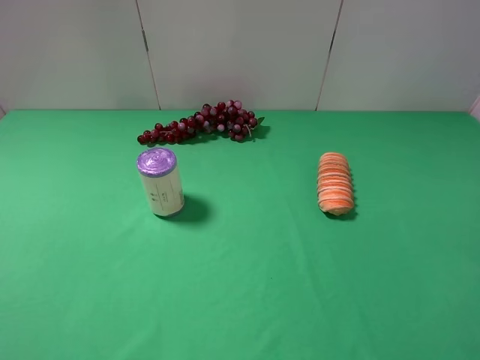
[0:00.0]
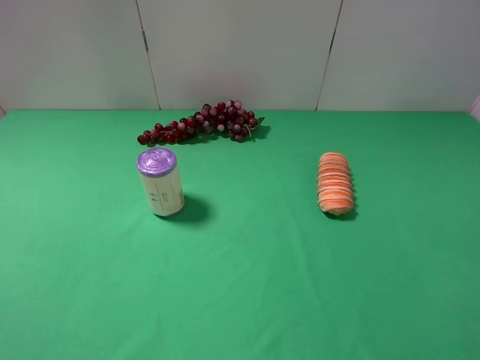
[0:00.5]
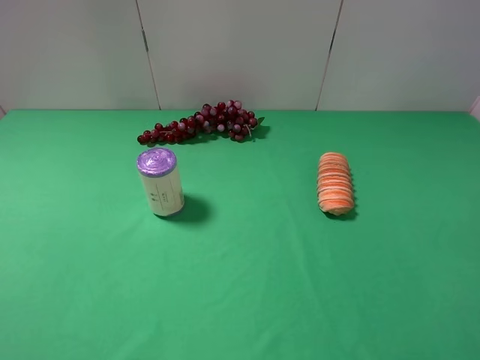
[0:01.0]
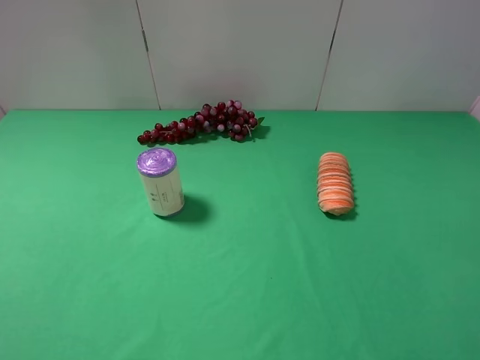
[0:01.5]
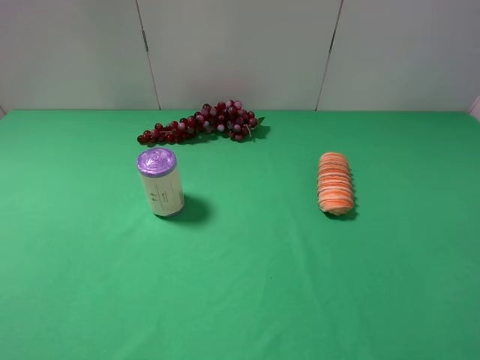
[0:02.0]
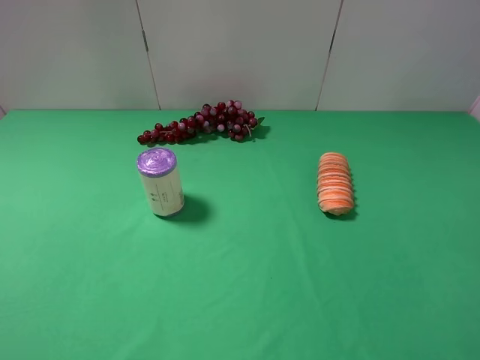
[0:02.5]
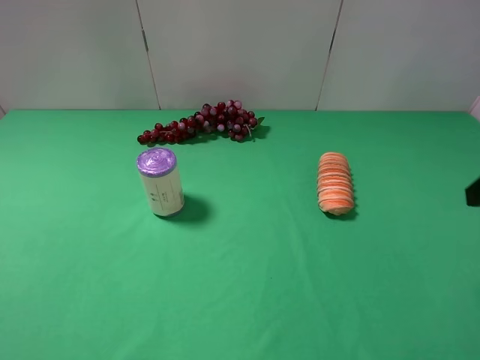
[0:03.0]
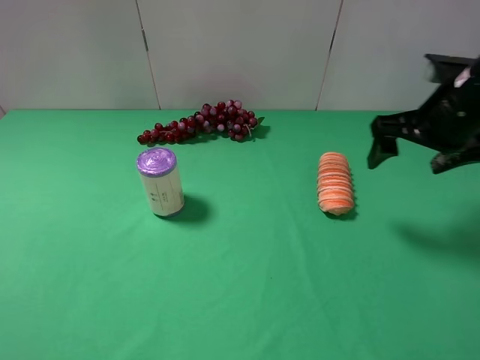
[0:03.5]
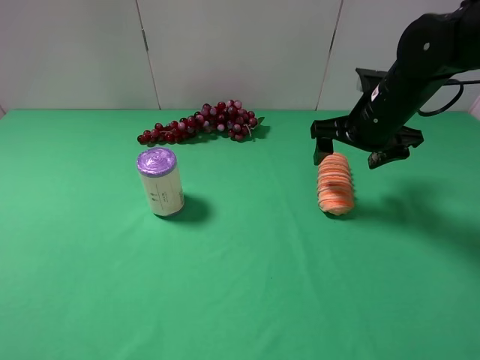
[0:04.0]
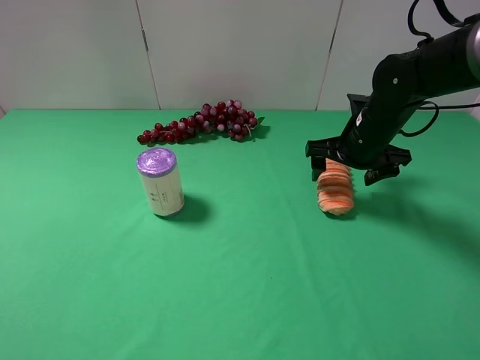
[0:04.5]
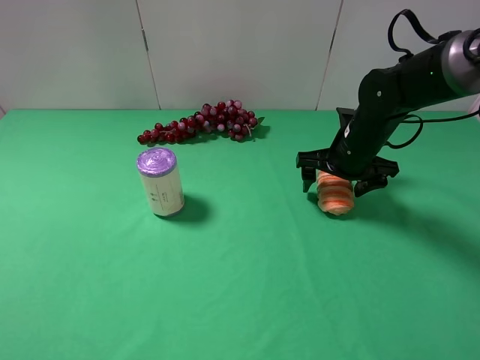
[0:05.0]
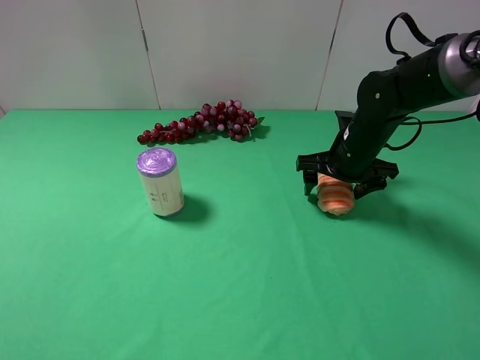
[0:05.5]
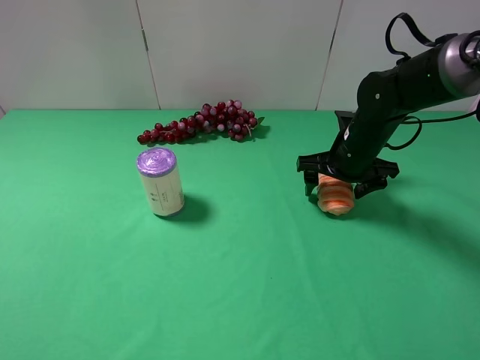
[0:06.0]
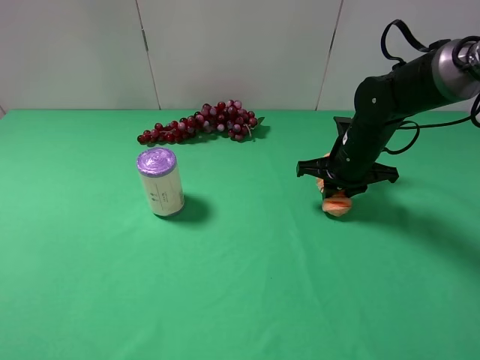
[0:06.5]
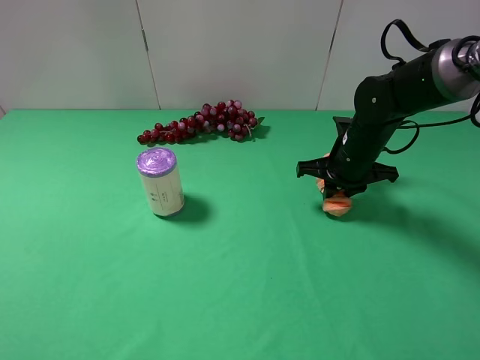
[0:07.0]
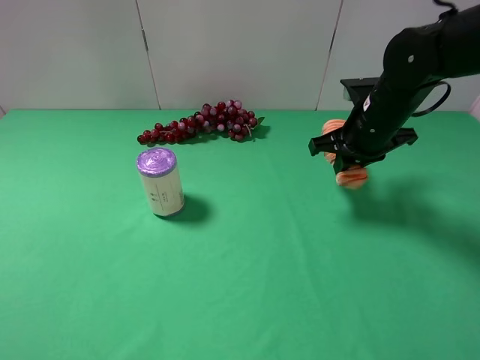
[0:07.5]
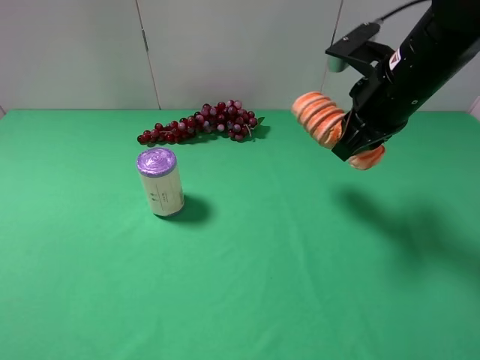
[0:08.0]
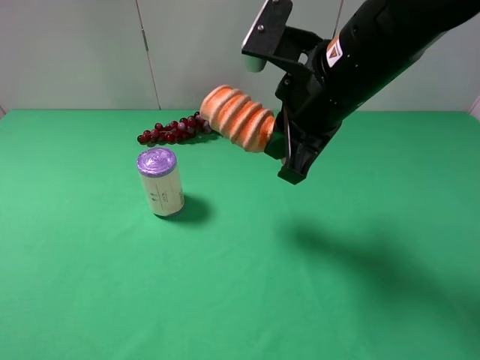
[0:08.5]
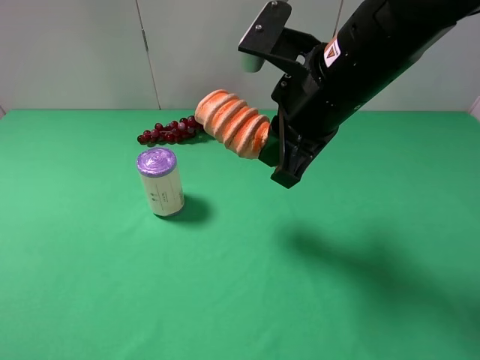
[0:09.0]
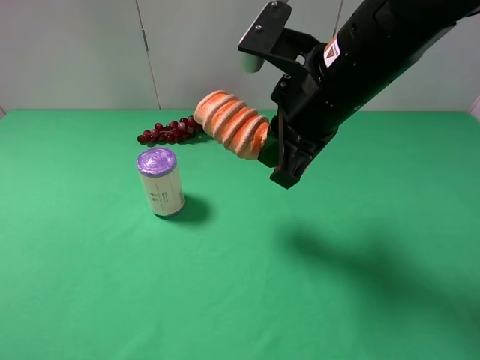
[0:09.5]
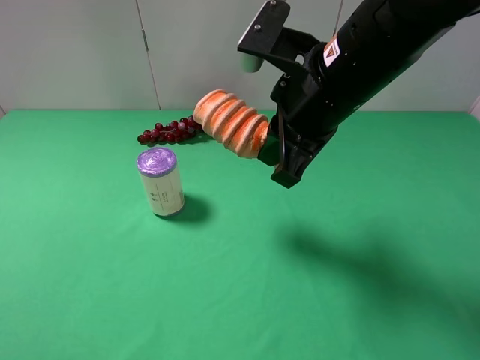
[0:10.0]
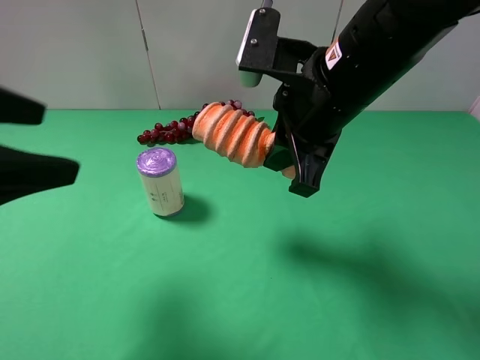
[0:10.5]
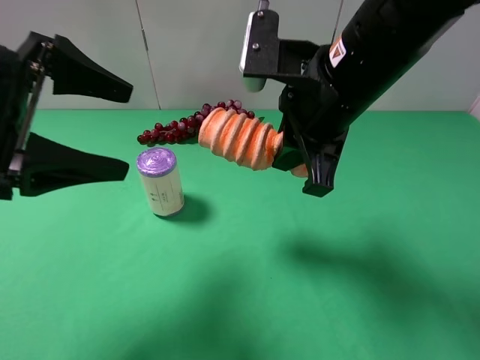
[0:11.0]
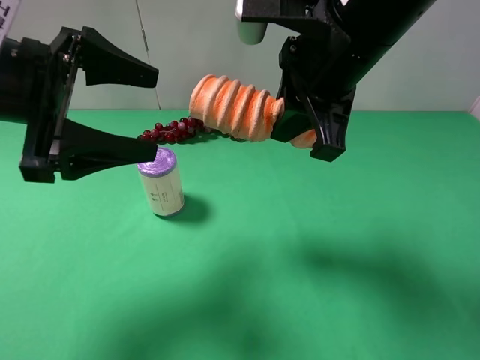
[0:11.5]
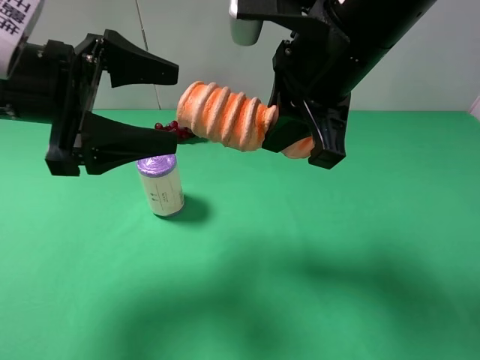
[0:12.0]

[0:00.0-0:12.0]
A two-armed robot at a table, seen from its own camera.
Task of the whole recording: use the right gripper to pick up the item and transfer it from the right gripper to the left gripper.
Step, 0:00.0 to 0:06.5: Use the right gripper to grab the bread on the right side of the table.
0:00.0 to 0:02.0: Both grippers stay put.
0:02.0 to 0:04.0: The right gripper heads forward, covering approximately 35 cm.
0:04.0 to 0:06.0: The right gripper shifts approximately 5 cm downward.
0:06.0 to 0:08.0: The right gripper moves upward and backward, approximately 15 cm, and closes its fingers.
0:08.0 to 0:10.0: The right gripper is displaced to the left by roughly 10 cm.
0:10.0 to 0:12.0: The left gripper moves forward and to the right, about 25 cm.

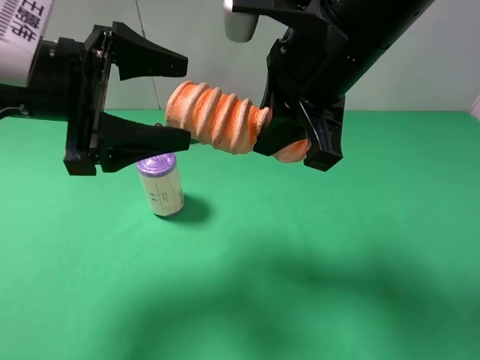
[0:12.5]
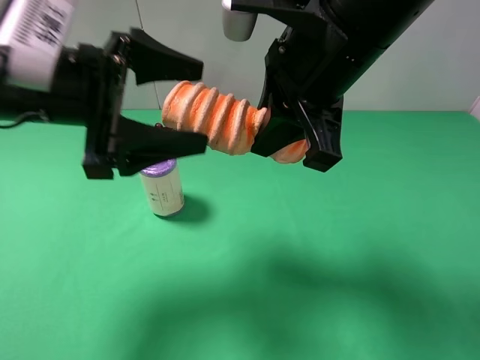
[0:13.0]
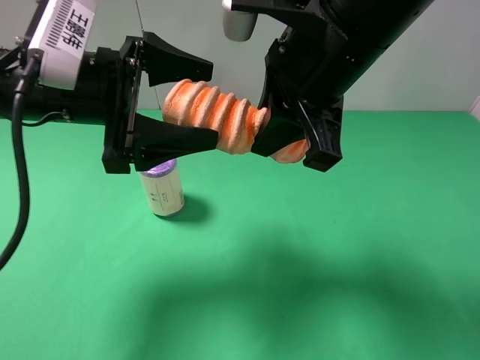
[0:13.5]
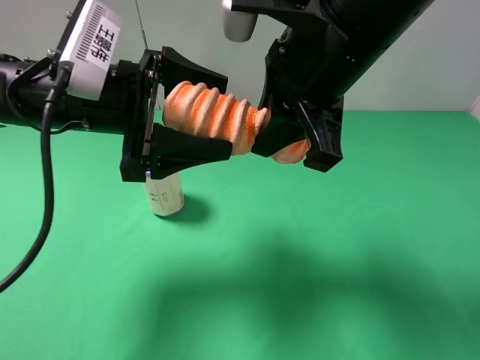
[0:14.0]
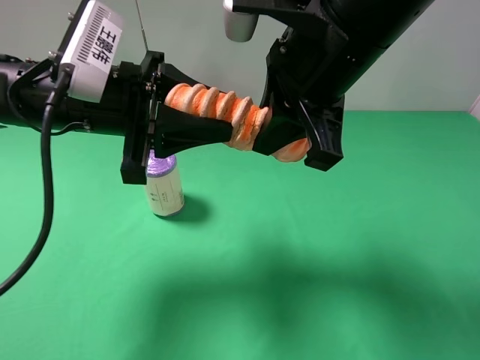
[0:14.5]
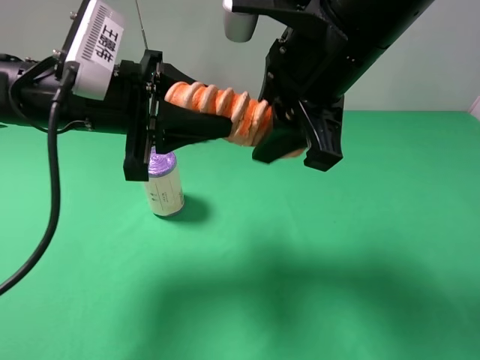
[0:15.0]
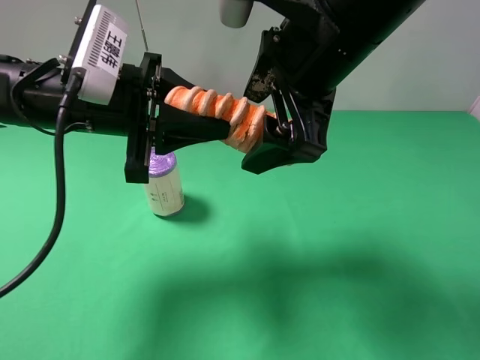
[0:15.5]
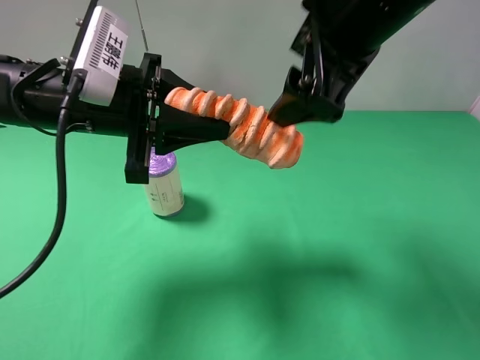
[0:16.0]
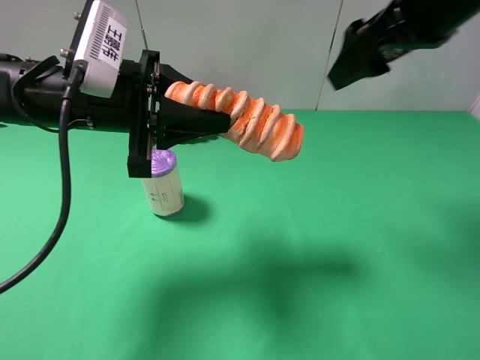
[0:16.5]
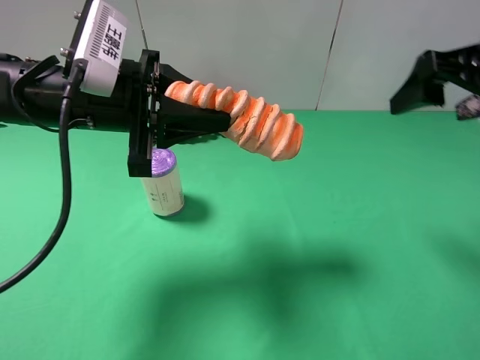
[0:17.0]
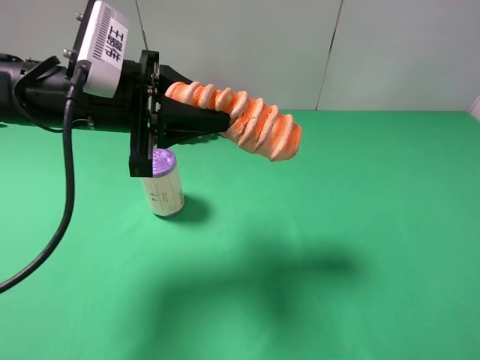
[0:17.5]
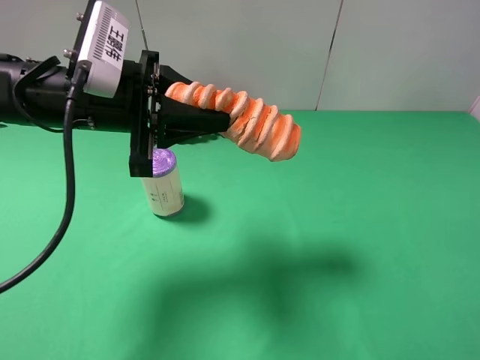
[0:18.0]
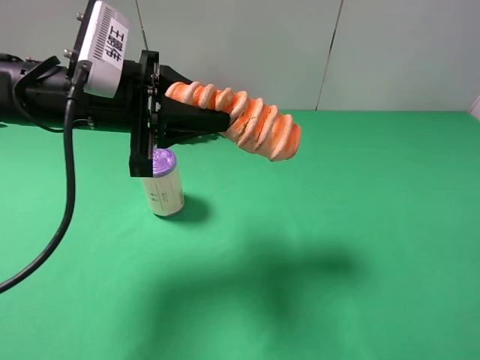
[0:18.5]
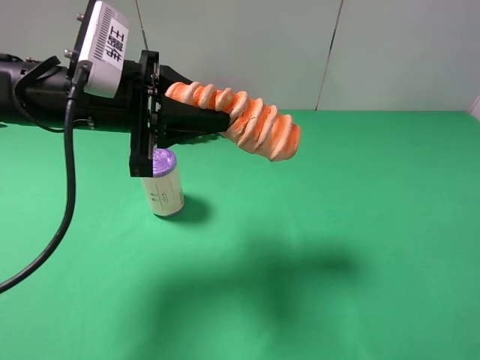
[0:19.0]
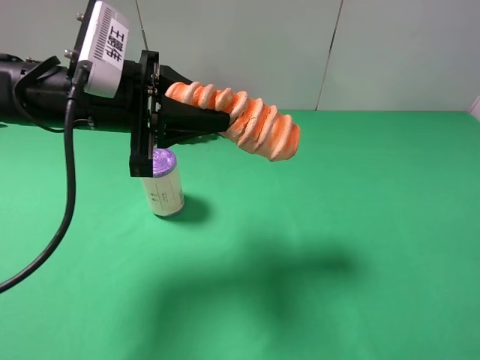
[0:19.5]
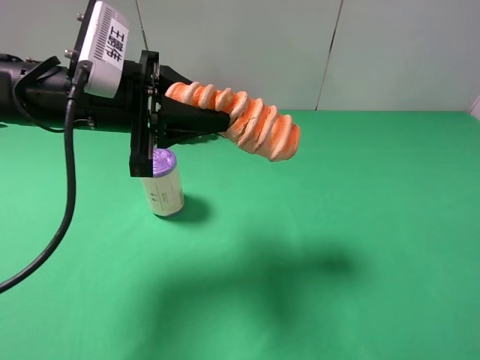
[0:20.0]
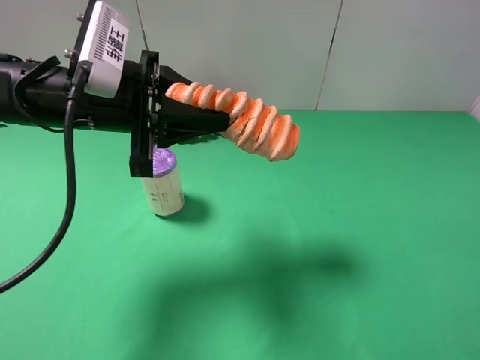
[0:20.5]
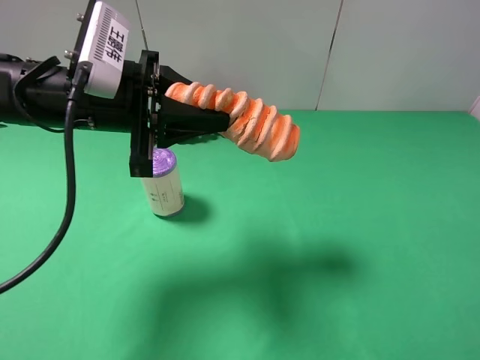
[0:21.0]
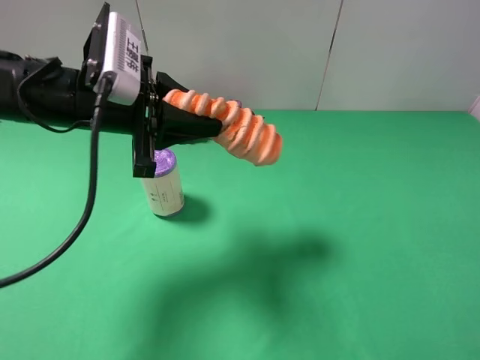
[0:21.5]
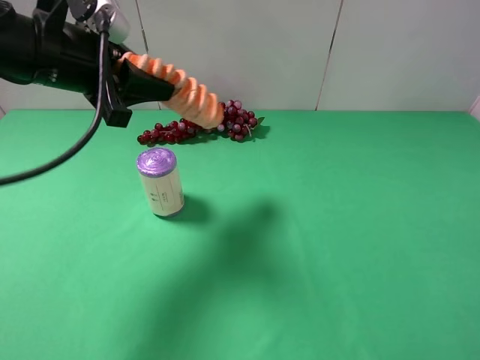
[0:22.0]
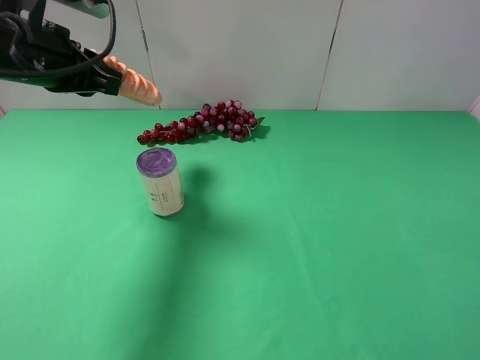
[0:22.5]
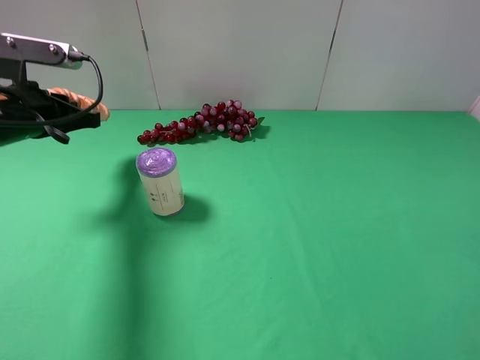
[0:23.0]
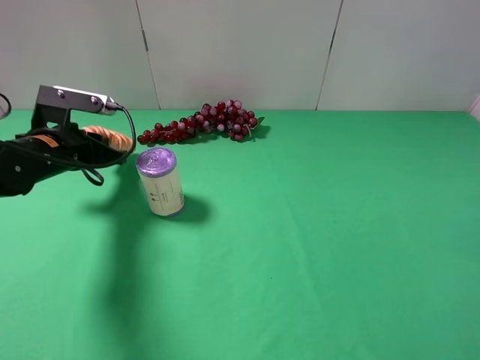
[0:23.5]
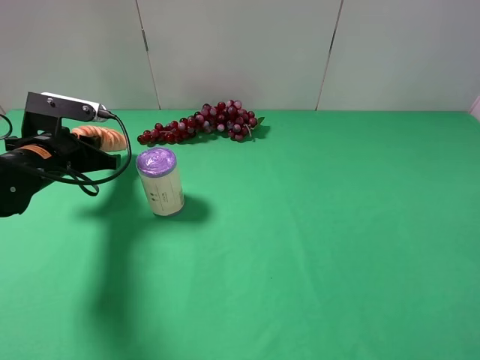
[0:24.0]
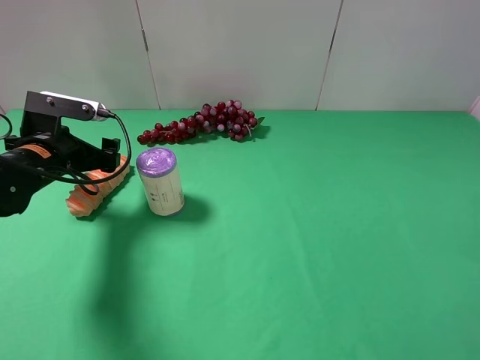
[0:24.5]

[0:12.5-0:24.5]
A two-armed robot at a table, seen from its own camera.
Task of the whole recording: use the right gripper to pick up the item and transfer it from the right gripper to the left gripper.
Step, 0:12.5 to 0:15.0: Pass the bread to the left gripper.
0:12.5 to 0:14.5: The left gripper closes up.
0:14.5 to 0:16.5: The right gripper travels to the right and forward by approximately 15 cm, and opens up.
0:16.5 to 0:18.5: The right gripper travels backward by about 30 cm.
0:20.5 to 0:22.5: The left gripper is displaced to the left by some 10 cm.
0:22.5 to 0:24.5: The left gripper travels downward by roughly 15 cm, and opens up.

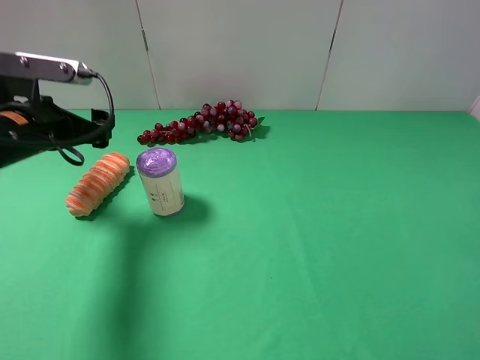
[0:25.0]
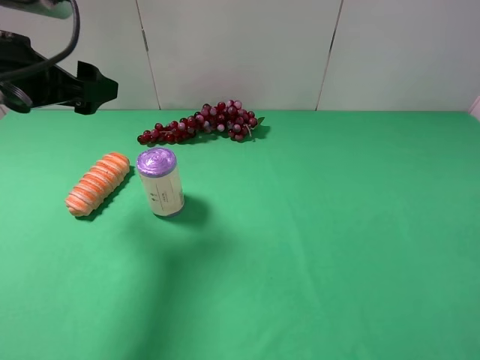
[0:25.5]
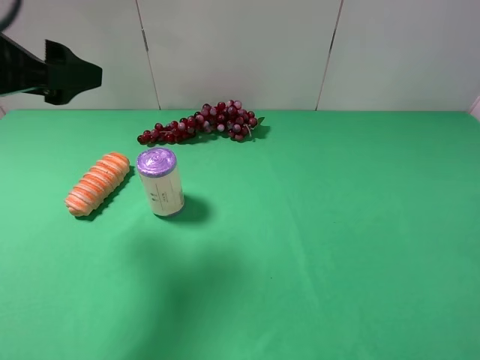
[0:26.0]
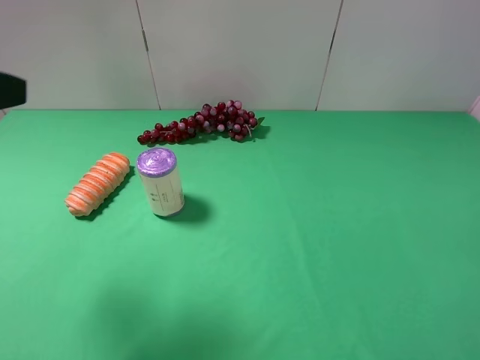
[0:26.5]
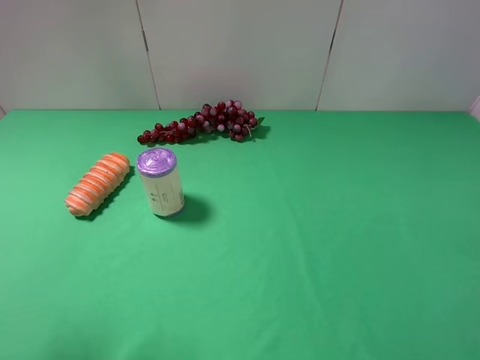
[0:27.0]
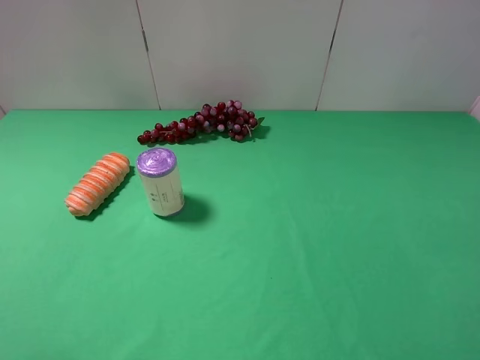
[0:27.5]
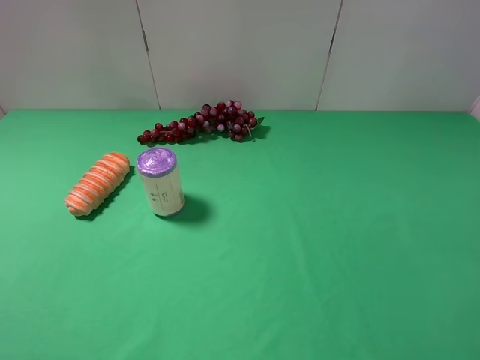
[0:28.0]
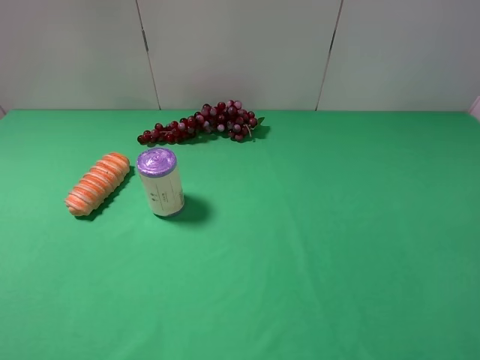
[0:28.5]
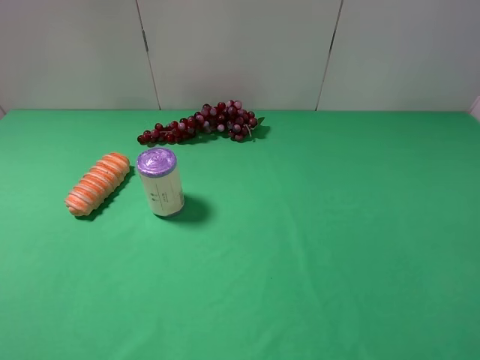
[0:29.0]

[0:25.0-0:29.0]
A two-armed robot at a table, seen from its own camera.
Task of the whole recording: use the right gripper to pick up the item and transfer it from the right gripper to the left gripper.
0:25.0 to 0:27.0: The left gripper travels backward and upward by about 25 cm.
